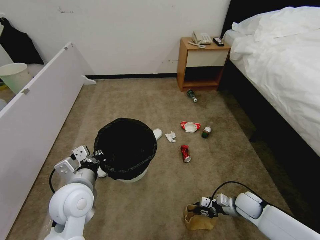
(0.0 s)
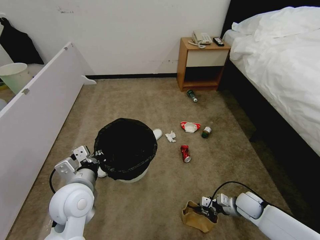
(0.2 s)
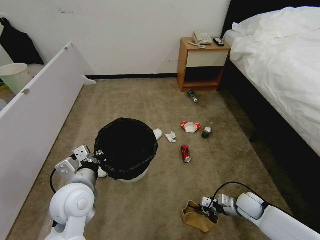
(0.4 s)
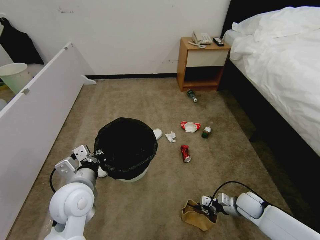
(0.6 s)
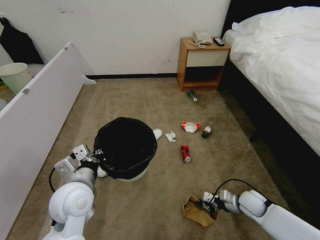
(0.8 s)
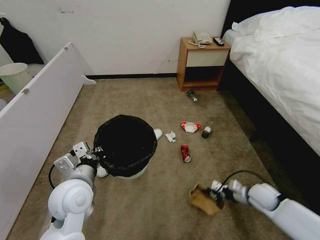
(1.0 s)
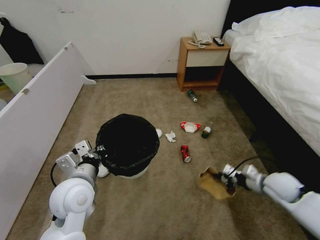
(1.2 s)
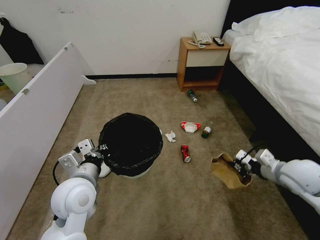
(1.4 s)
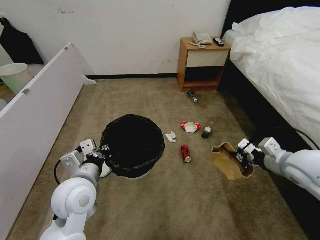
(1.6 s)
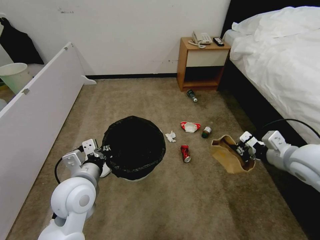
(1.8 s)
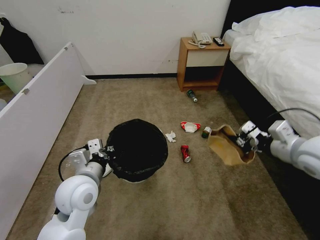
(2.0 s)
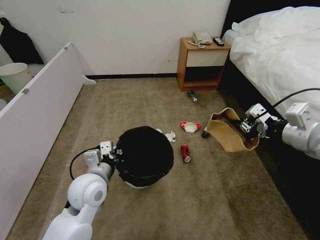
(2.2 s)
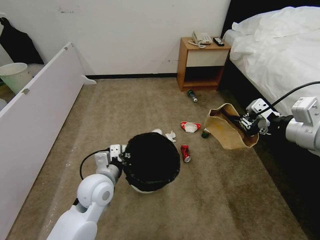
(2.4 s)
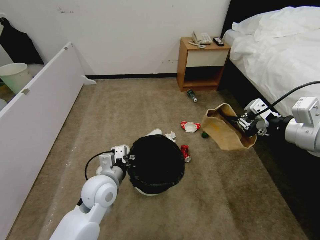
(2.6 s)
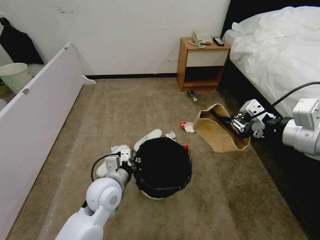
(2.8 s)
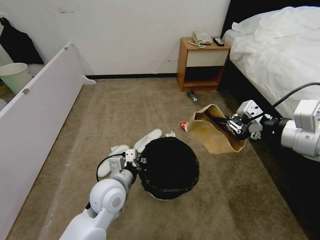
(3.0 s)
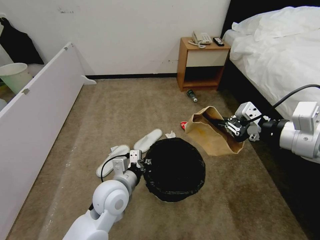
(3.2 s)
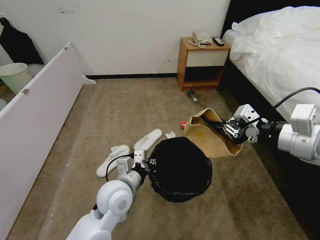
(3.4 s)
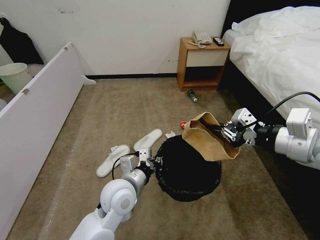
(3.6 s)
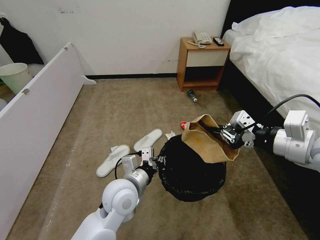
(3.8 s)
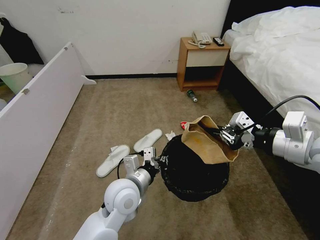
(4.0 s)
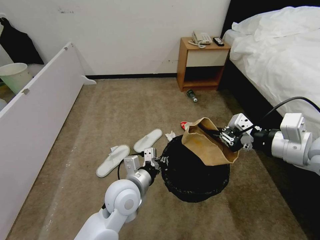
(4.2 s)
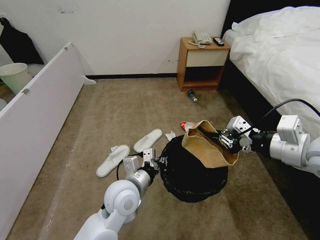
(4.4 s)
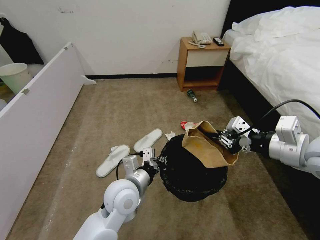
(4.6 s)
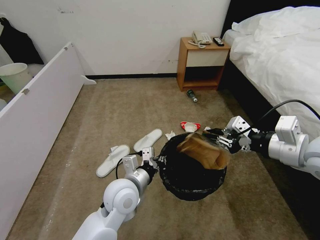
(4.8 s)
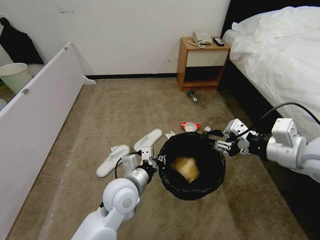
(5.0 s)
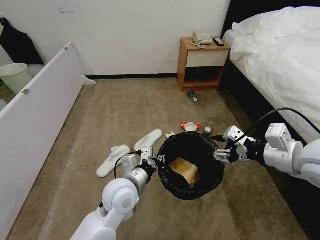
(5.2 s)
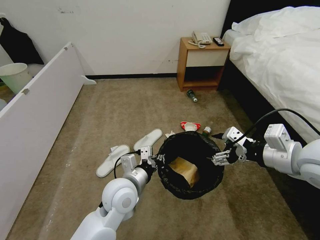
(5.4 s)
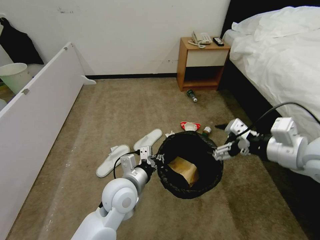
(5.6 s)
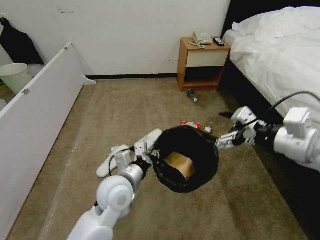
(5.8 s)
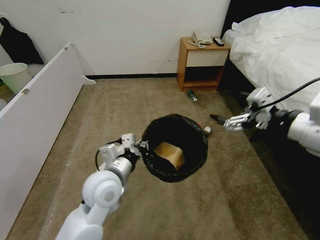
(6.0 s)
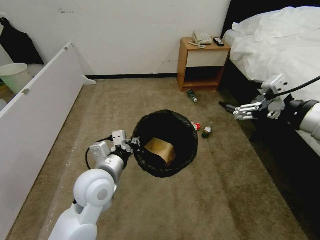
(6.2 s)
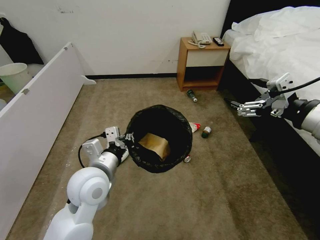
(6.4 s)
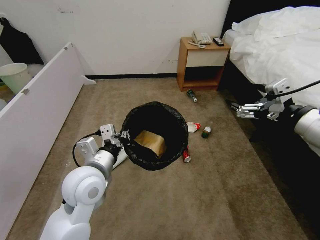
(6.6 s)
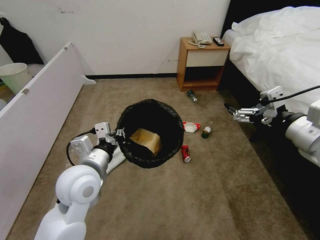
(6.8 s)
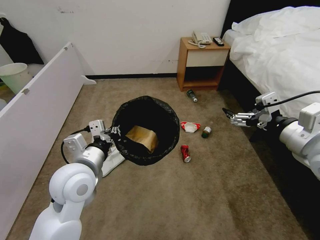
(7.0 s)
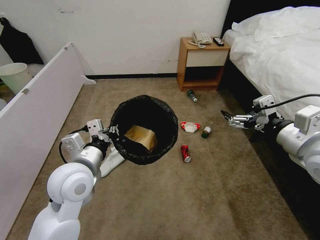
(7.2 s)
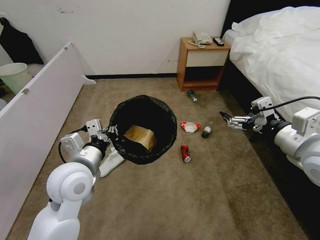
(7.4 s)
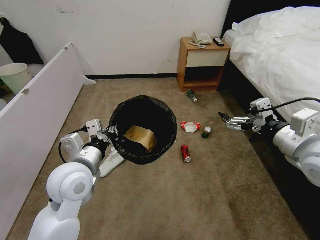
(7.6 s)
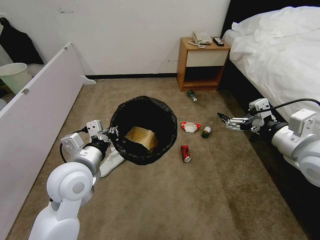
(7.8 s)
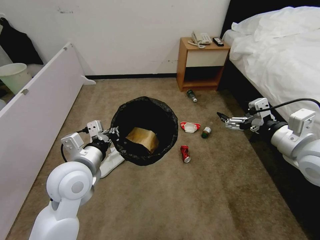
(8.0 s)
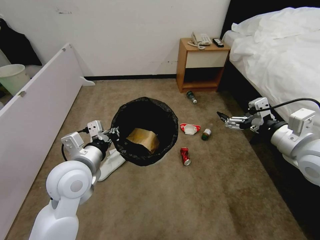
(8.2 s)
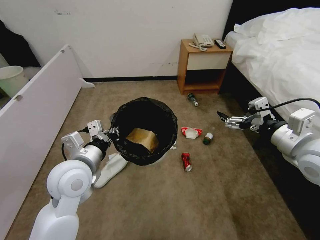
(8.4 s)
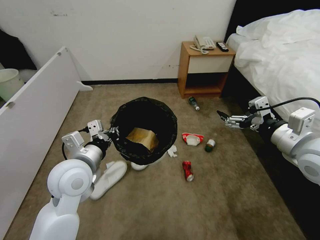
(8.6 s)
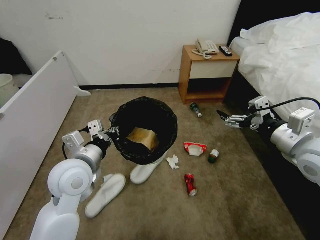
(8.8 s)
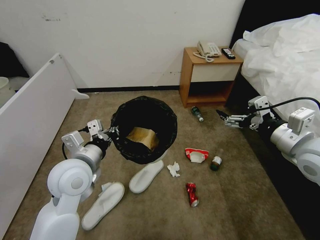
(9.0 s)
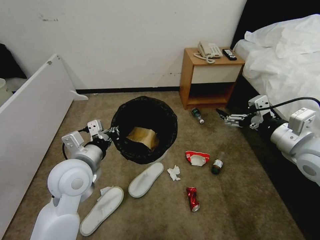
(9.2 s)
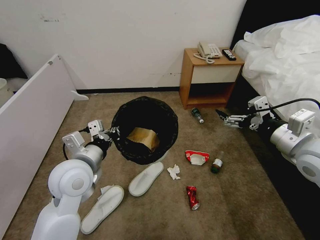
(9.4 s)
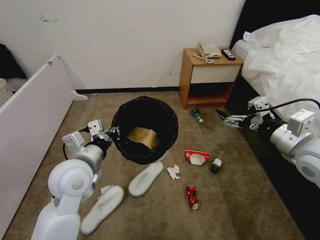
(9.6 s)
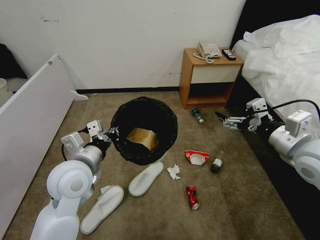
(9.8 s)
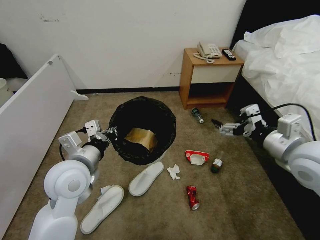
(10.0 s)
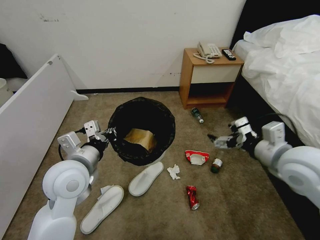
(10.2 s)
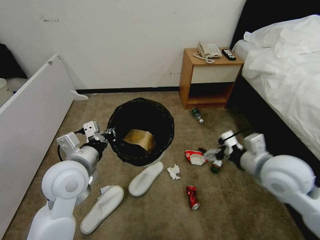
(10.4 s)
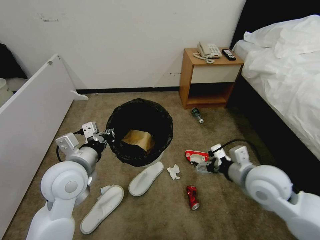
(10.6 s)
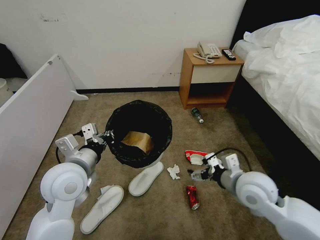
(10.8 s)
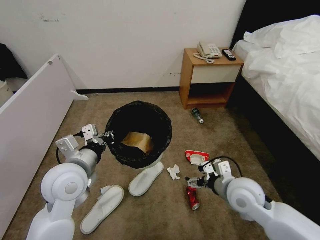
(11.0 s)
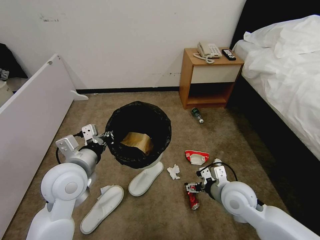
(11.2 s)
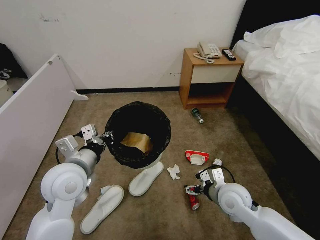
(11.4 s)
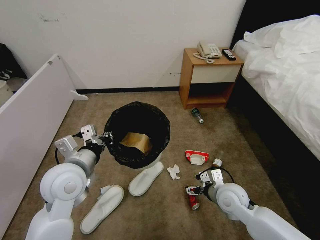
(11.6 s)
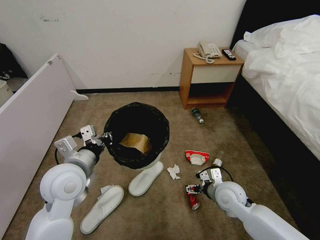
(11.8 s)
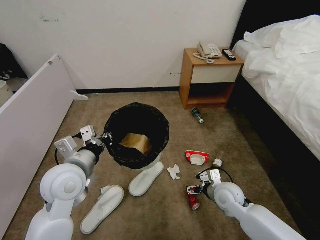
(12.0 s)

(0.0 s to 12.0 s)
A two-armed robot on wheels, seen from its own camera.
Task of the whole recording: Pick up the trash bin, then pick up the garbage from the floor and place it into the trash bin.
0.0 s - 1.6 s: The right gripper moves upward, about 30 cm.
1.6 s - 3.0 s: The right gripper moves upward, some 15 cm, while the left gripper shifts roughly 10 cm to the right and downward.
3.0 s - 4.4 s: The grippers move only a little.
4.4 s - 6.0 s: The left gripper changes place by roughly 5 cm. Meanwhile the right gripper opens up.
6.0 s - 7.6 s: The left gripper is displaced to the left by roughly 5 cm, while the right gripper heads downward, covering approximately 5 cm.
9.0 s - 10.4 s: The right gripper moves downward and to the left, roughly 10 cm.
10.4 s - 12.0 s: The right gripper heads downward, covering approximately 20 cm.

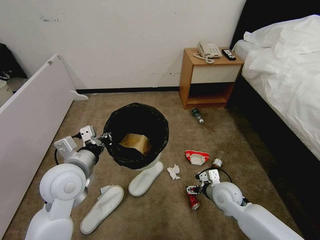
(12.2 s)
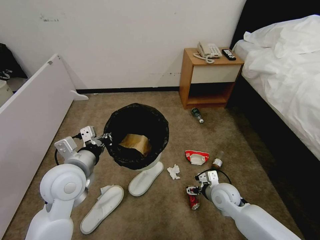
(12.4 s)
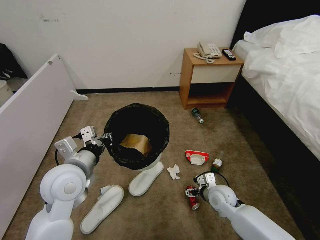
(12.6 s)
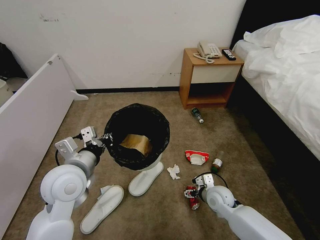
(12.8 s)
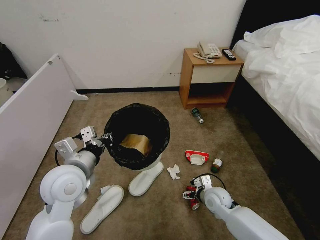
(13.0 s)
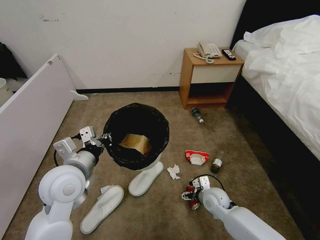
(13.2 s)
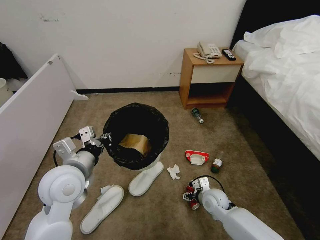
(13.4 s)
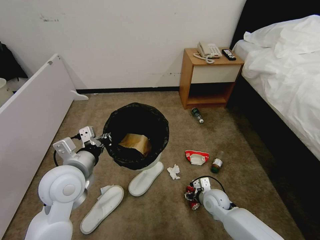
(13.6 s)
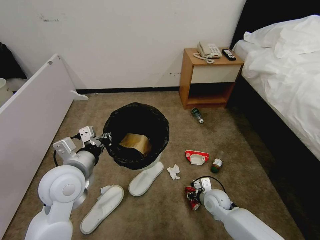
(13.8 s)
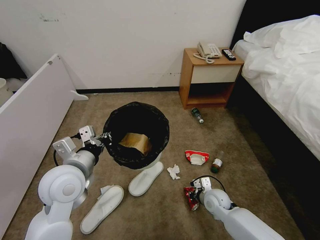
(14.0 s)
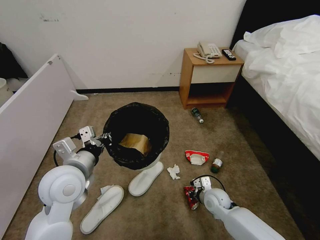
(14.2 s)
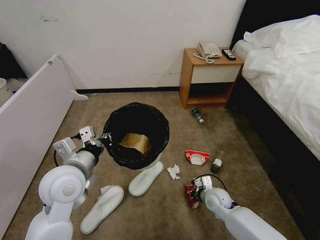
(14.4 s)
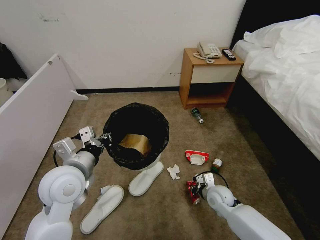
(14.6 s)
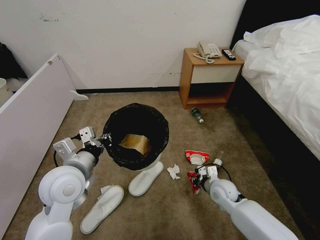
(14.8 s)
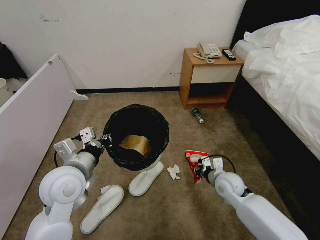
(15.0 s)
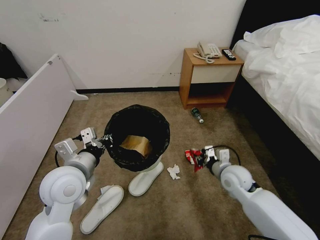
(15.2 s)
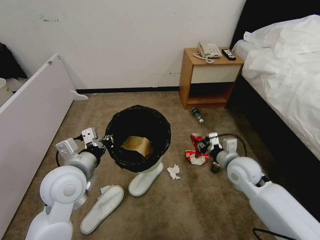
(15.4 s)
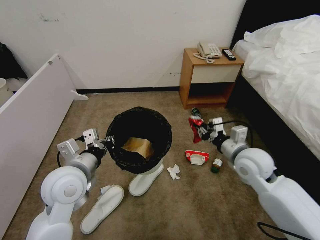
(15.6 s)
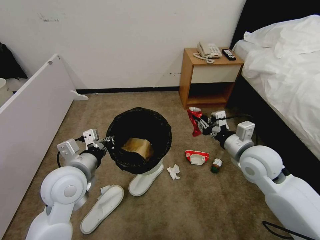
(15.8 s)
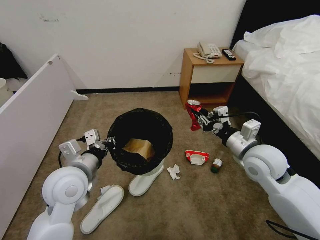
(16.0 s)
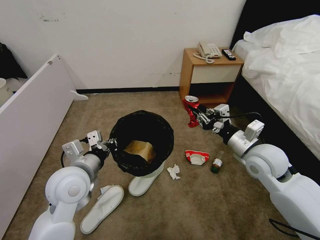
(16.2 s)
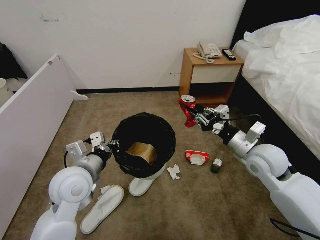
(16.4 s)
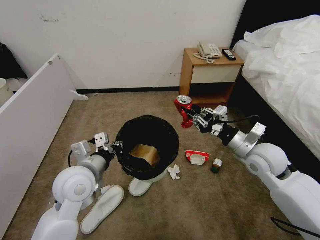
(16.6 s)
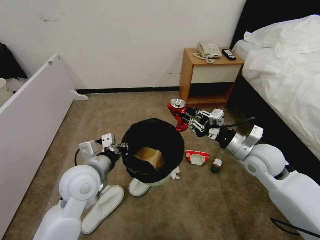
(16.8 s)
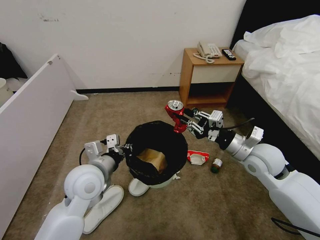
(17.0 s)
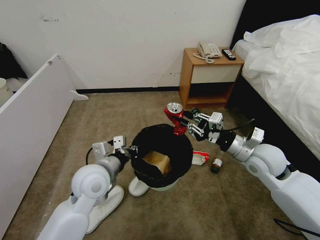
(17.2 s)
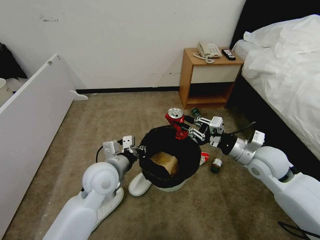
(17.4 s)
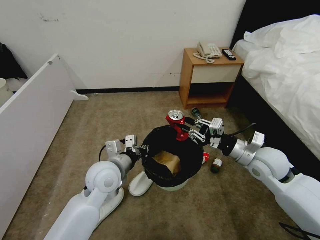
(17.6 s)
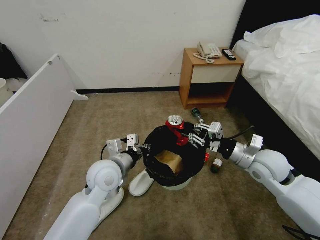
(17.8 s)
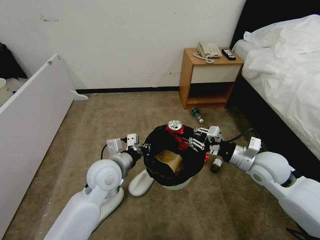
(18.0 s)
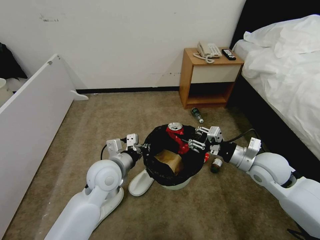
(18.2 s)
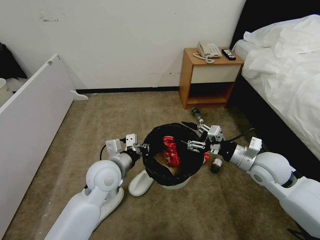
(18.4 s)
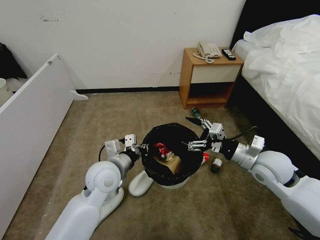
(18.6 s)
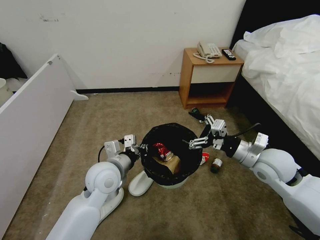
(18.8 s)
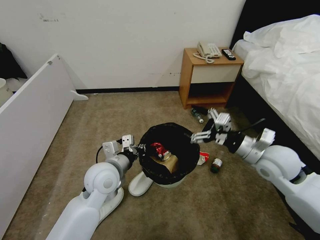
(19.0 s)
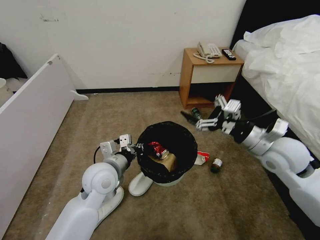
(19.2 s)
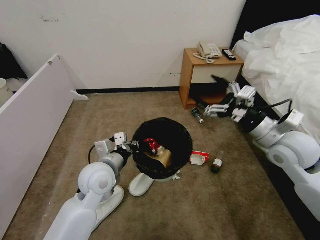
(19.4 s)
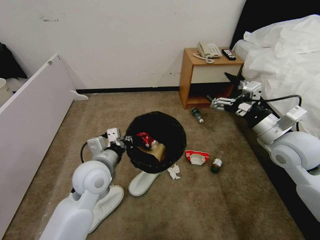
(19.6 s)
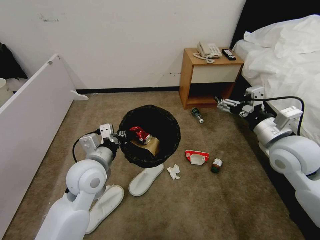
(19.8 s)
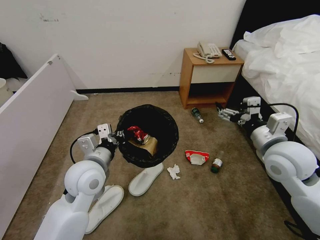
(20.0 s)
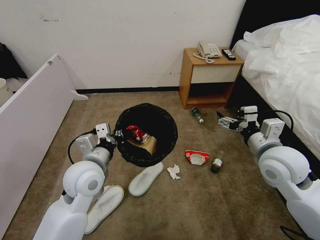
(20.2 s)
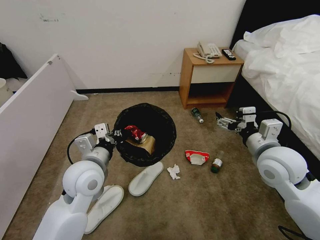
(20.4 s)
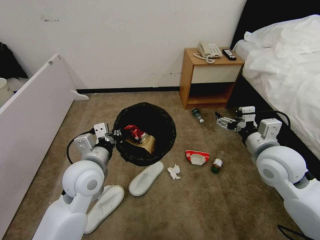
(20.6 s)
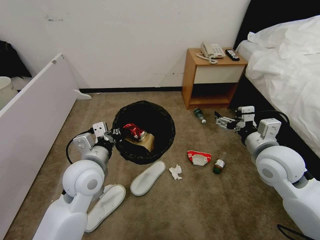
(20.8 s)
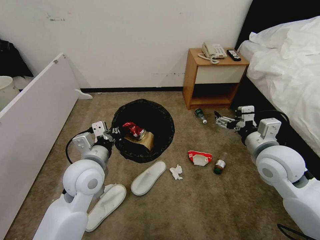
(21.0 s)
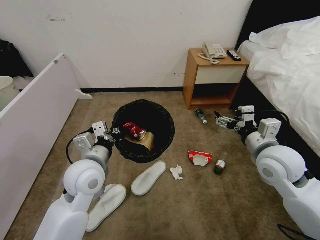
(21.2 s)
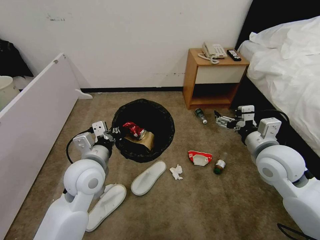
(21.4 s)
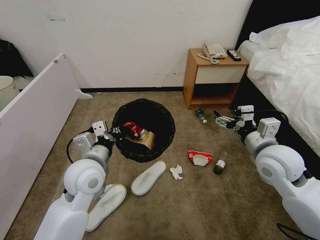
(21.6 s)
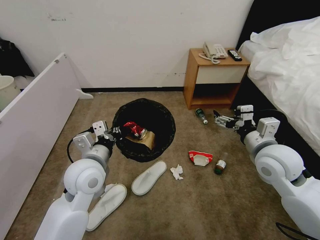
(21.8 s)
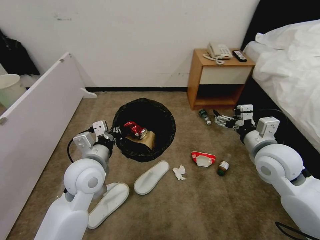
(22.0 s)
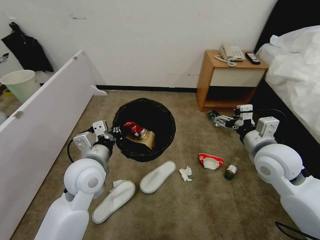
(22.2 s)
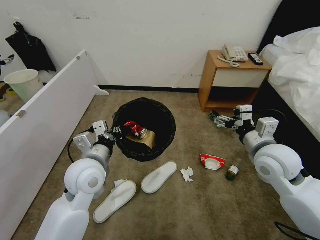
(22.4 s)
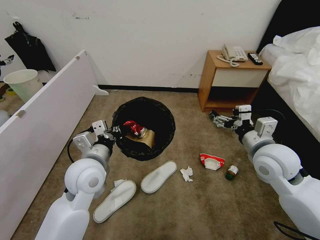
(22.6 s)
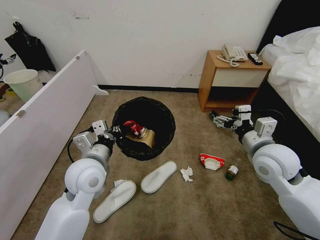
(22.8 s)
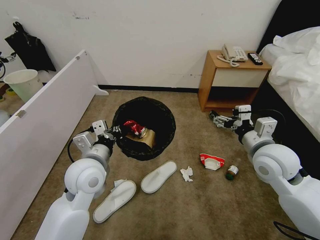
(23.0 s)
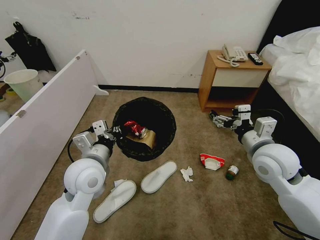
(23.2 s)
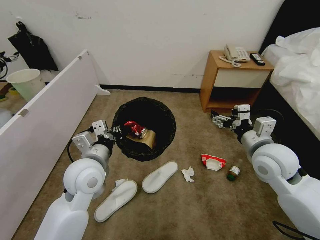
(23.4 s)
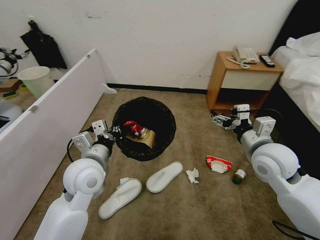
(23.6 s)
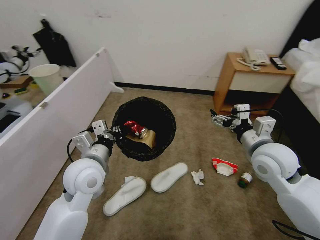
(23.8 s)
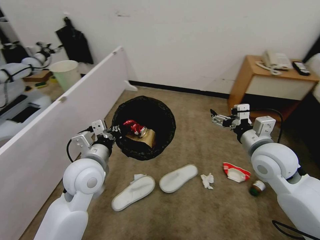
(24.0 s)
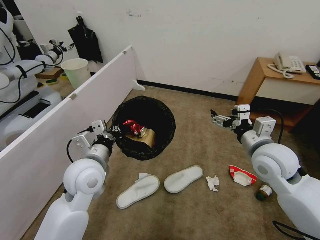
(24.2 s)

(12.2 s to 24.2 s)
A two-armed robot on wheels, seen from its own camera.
Task of the whole recording: Pick up the trash bin, then pick up the garbage from the floor and place it into the trash bin.
12.2 s - 13.8 s: The right gripper heads downward, covering about 10 cm, and closes.
13.8 s - 15.2 s: The right gripper moves upward, about 15 cm.
15.2 s - 16.6 s: The right gripper is displaced upward by roughly 10 cm.
16.6 s - 18.2 s: The left gripper shifts about 5 cm to the right.
18.2 s - 19.8 s: The right gripper goes some 10 cm upward, and opens.
